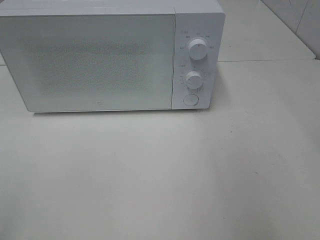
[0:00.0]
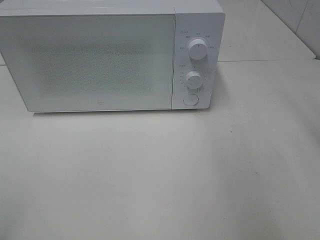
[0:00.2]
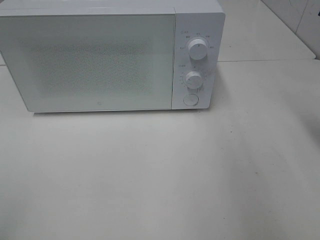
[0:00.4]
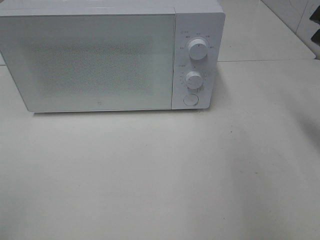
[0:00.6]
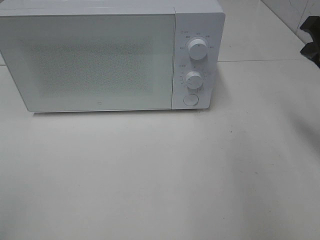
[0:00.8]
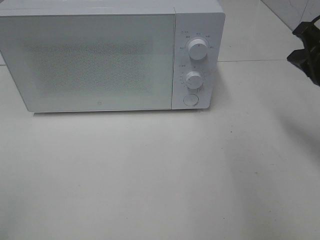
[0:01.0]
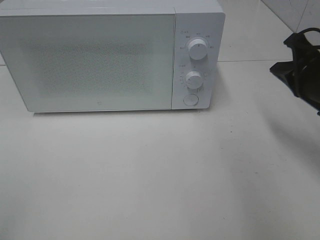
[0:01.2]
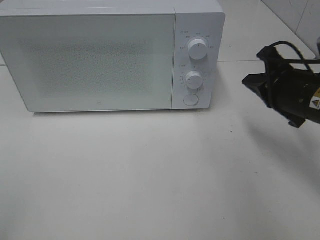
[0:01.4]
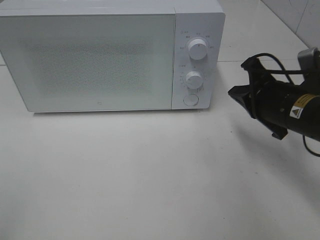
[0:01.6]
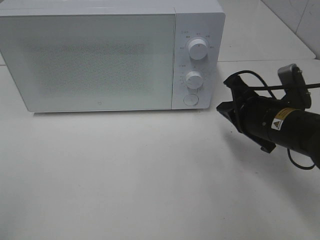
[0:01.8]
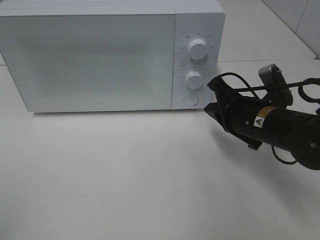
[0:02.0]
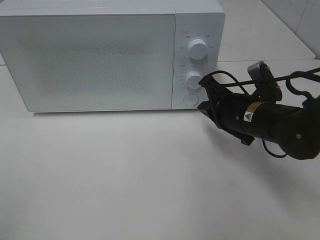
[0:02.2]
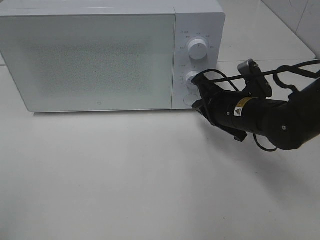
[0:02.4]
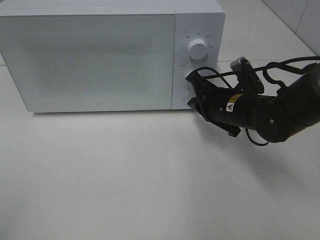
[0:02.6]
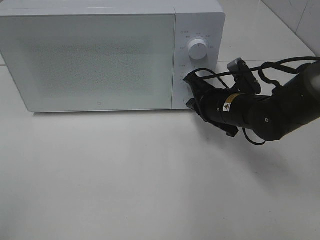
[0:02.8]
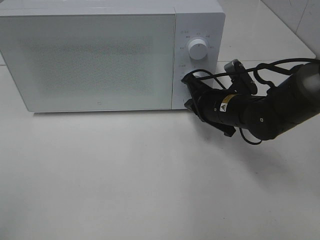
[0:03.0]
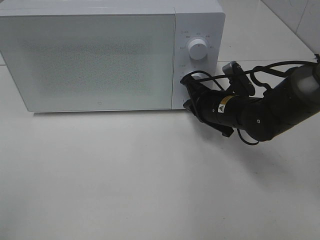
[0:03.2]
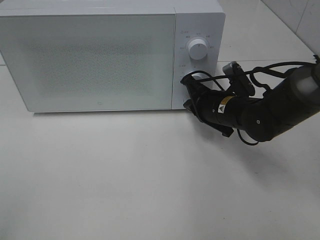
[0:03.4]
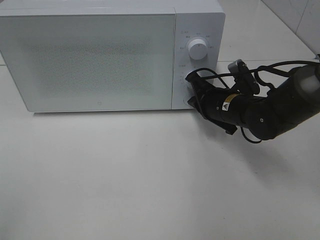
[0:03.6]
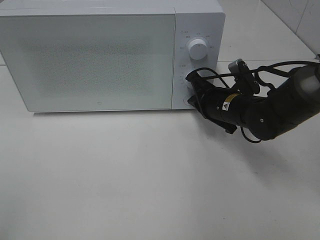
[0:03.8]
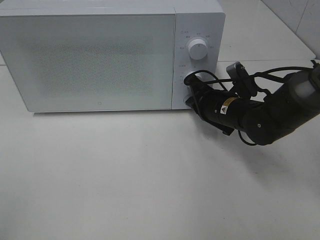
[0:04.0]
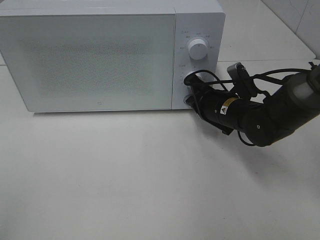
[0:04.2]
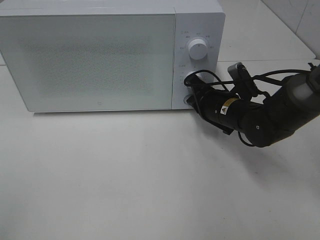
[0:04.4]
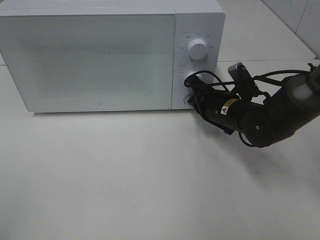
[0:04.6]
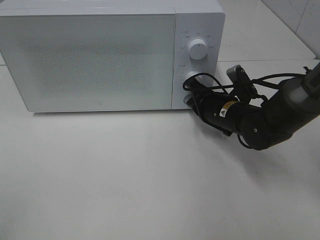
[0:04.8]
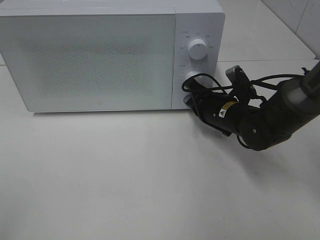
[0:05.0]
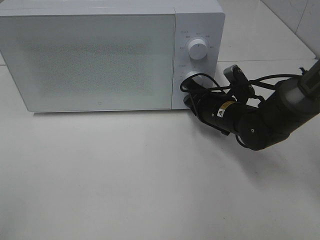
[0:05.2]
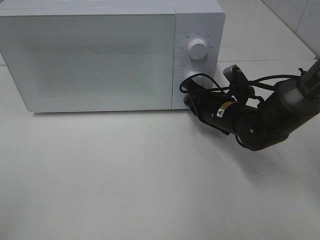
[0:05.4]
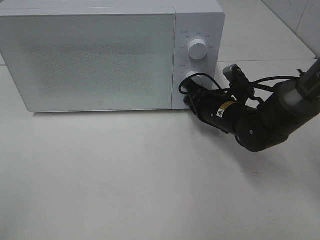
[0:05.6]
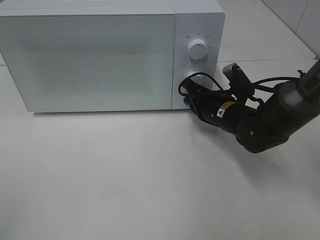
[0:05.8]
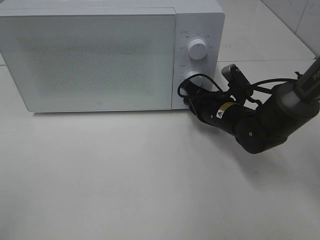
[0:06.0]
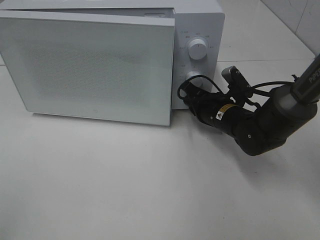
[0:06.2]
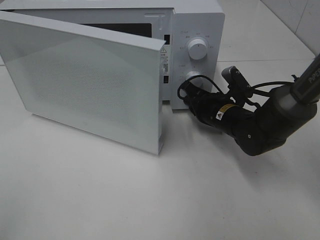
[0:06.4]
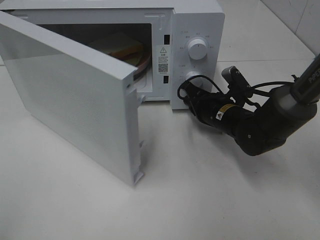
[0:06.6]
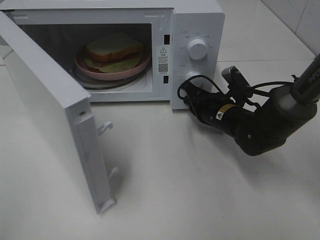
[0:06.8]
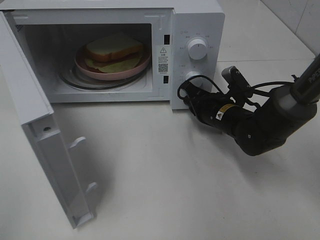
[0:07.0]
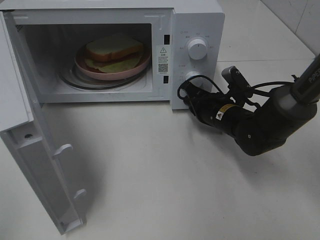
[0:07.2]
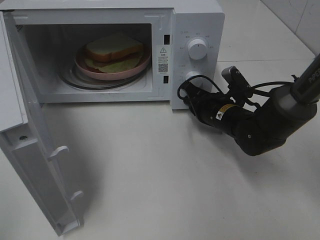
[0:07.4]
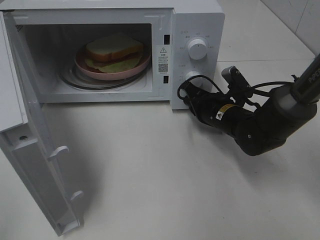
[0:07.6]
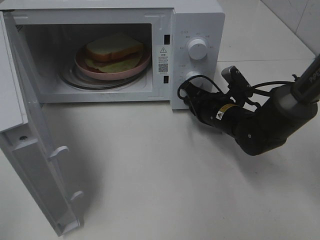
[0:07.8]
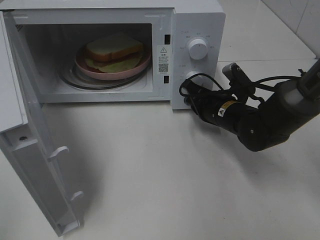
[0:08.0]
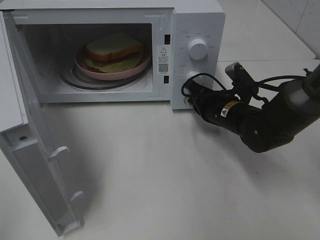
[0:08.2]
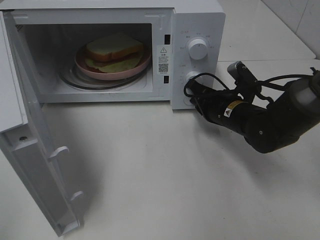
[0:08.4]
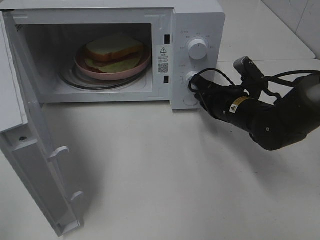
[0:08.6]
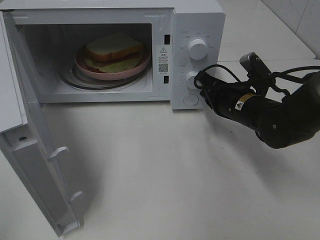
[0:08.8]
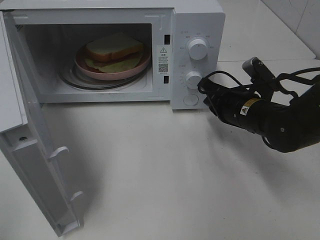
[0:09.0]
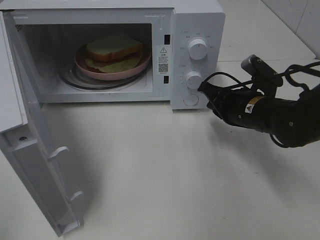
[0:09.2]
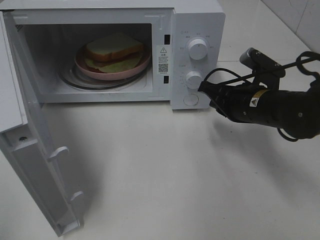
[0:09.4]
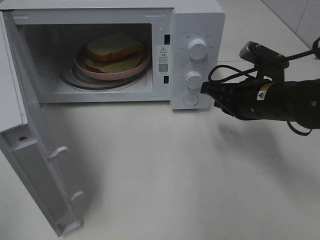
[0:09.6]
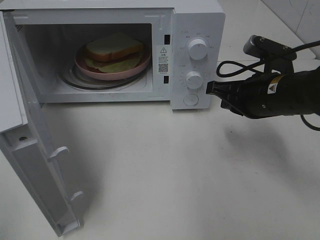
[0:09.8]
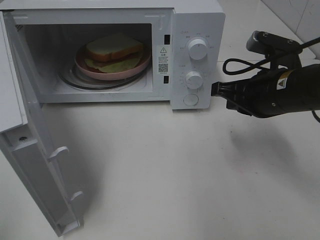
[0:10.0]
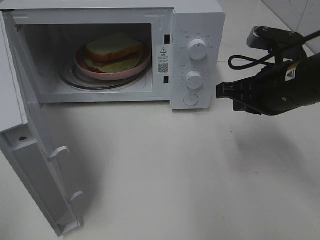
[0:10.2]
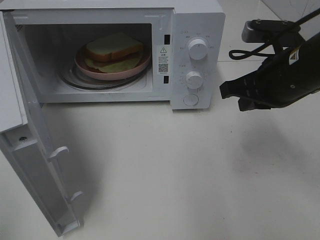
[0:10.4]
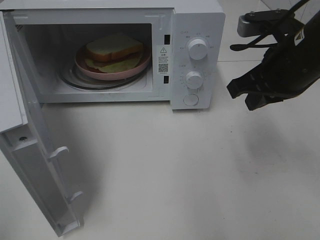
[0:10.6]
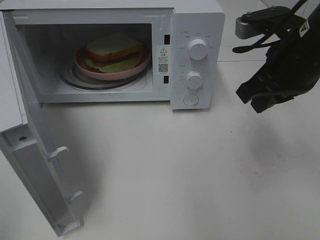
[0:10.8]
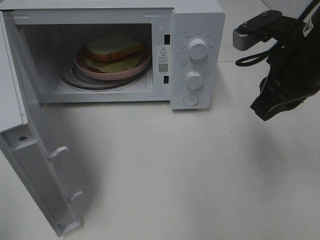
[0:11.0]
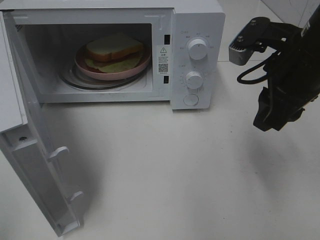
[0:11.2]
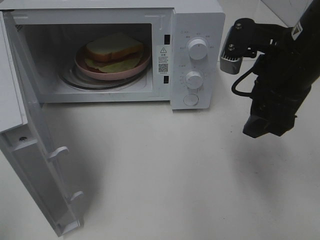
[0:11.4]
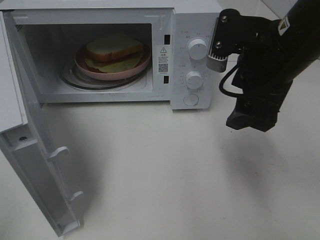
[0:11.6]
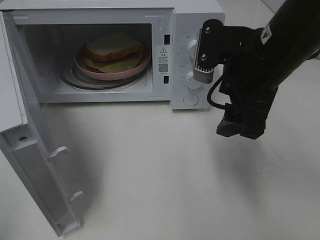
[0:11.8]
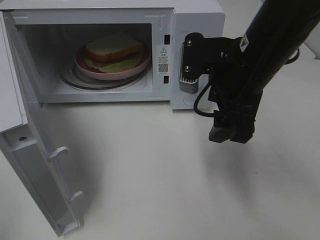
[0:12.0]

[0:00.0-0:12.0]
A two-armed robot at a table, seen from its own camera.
Task of the whole recording: Heat Sandwich.
Step, 0:00.0 to 0:09.0: Right hand: press the switch.
0:00.0 to 0:01.6: The right gripper travels downward, to the left and forward by about 20 cm, and closes up.
0:01.6 to 0:03.0: The right gripper shifts approximately 10 cm forward, to the left and downward.
0:03.0 to 0:06.0: The grippers stay close to where they were, moving slightly.
0:07.6 to 0:09.0: The right gripper changes place by roughly 5 cm.
0:09.0 to 0:10.4: The right gripper goes roughly 10 cm upward.
0:10.4 to 0:12.0: The right gripper travels to the left by roughly 10 cm, and opens its fingers.

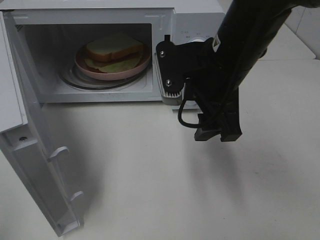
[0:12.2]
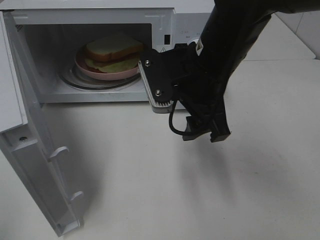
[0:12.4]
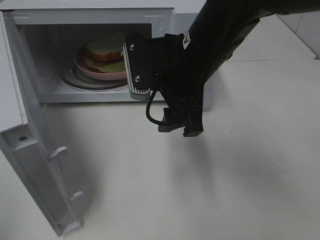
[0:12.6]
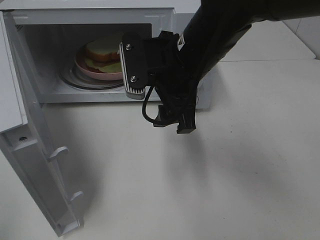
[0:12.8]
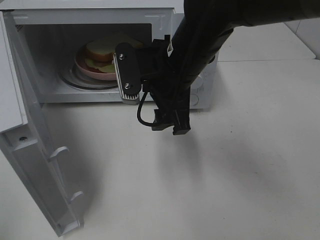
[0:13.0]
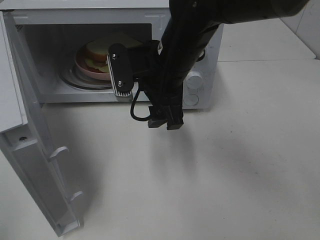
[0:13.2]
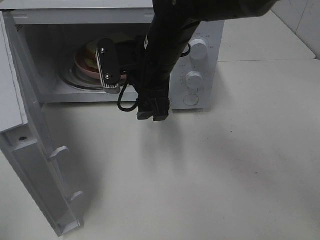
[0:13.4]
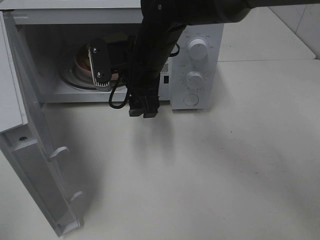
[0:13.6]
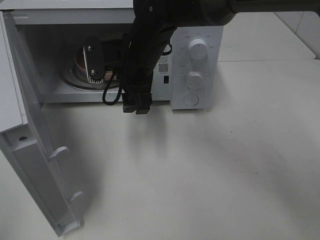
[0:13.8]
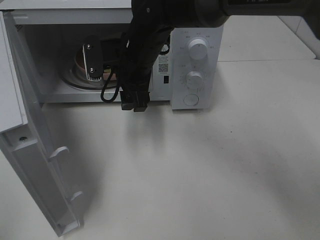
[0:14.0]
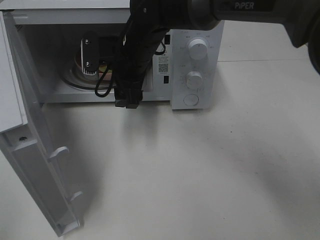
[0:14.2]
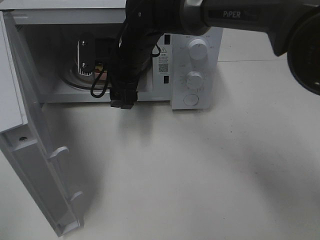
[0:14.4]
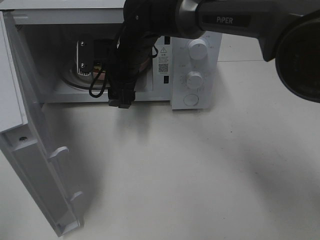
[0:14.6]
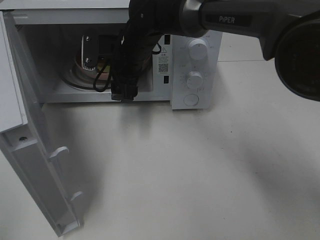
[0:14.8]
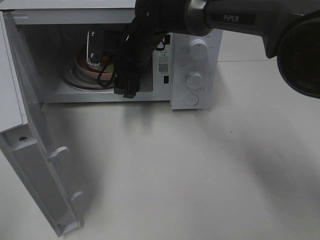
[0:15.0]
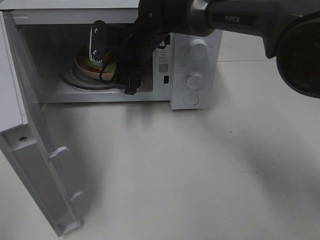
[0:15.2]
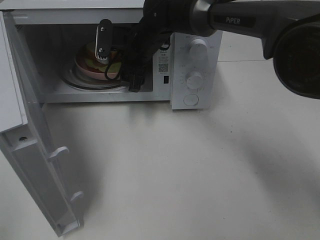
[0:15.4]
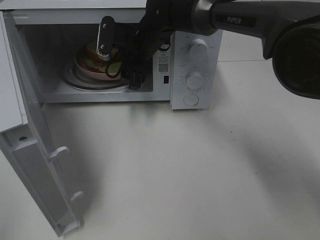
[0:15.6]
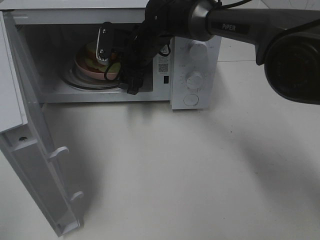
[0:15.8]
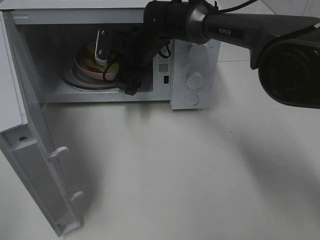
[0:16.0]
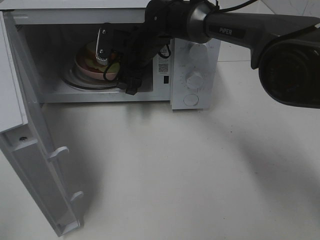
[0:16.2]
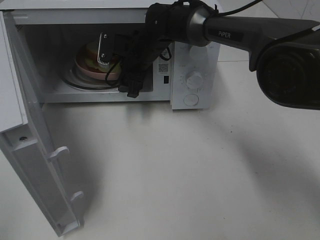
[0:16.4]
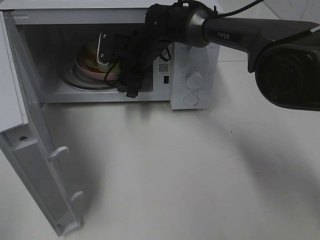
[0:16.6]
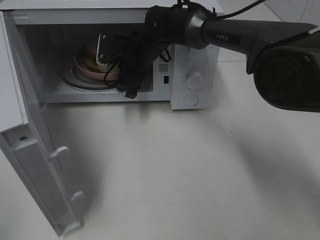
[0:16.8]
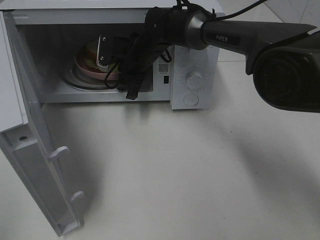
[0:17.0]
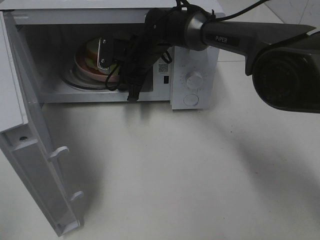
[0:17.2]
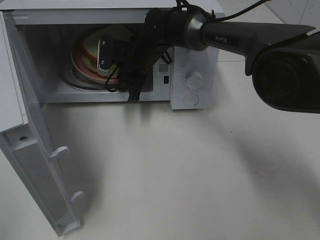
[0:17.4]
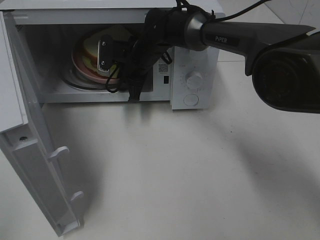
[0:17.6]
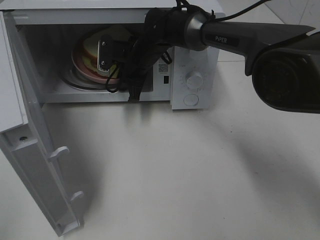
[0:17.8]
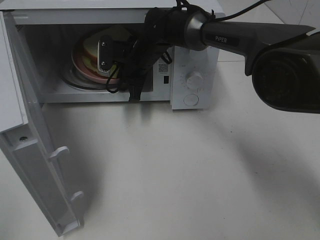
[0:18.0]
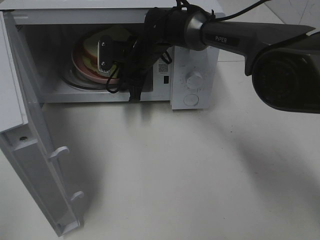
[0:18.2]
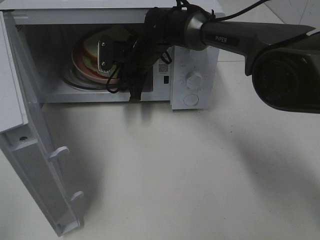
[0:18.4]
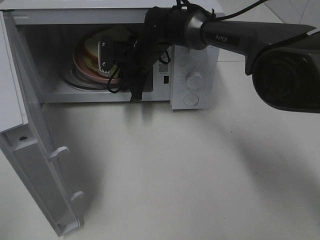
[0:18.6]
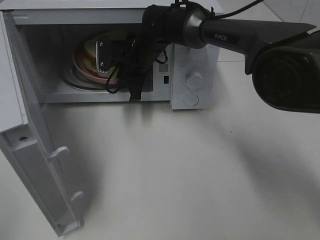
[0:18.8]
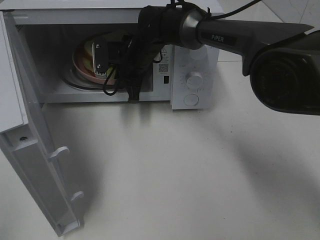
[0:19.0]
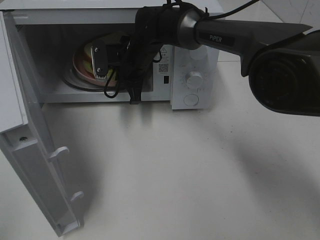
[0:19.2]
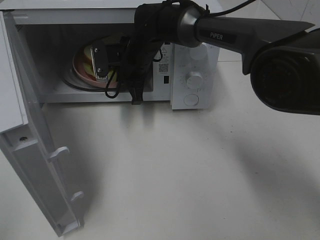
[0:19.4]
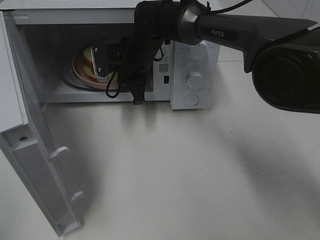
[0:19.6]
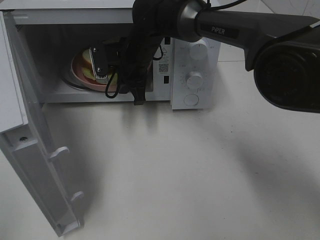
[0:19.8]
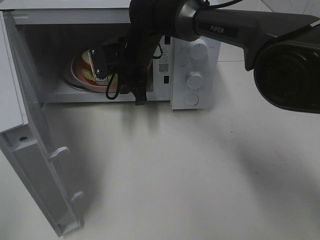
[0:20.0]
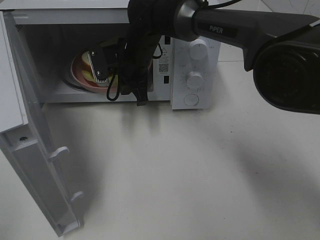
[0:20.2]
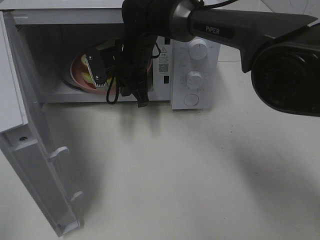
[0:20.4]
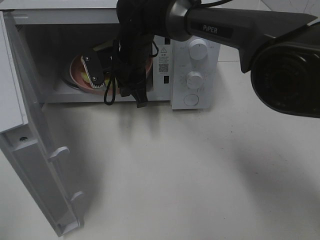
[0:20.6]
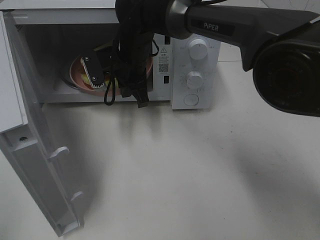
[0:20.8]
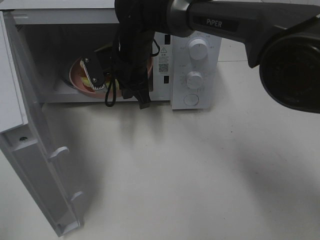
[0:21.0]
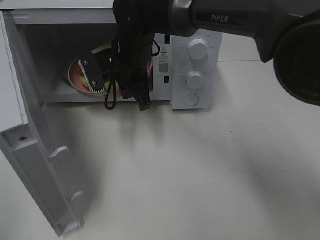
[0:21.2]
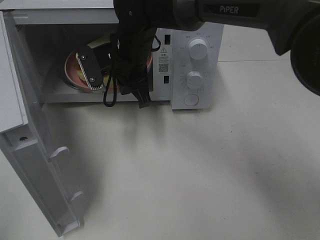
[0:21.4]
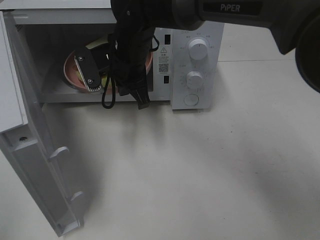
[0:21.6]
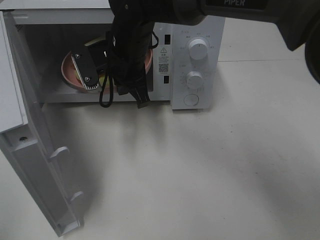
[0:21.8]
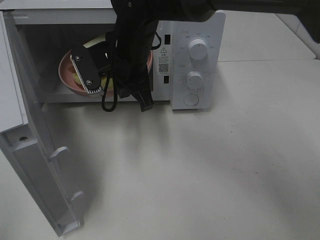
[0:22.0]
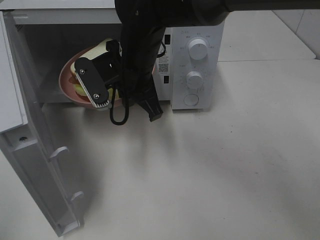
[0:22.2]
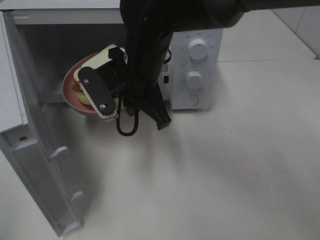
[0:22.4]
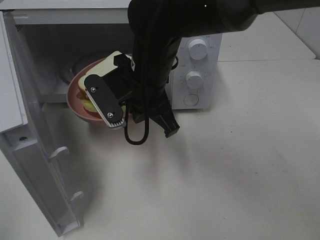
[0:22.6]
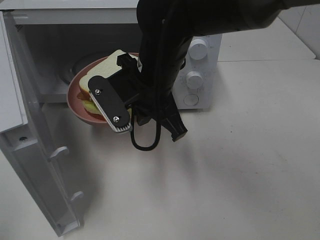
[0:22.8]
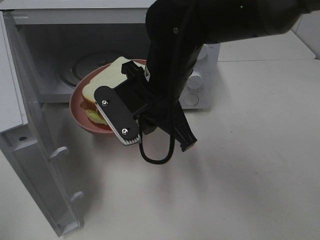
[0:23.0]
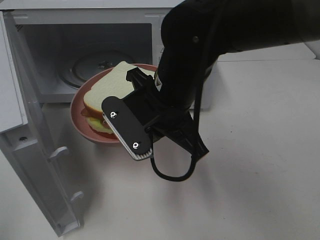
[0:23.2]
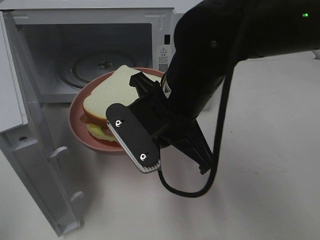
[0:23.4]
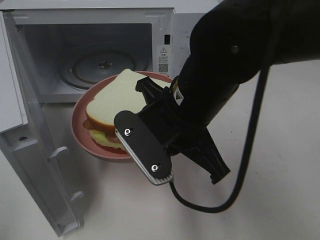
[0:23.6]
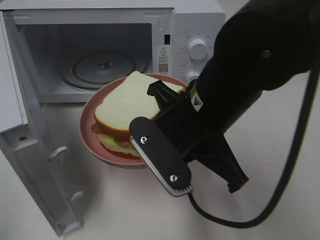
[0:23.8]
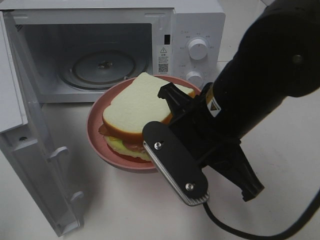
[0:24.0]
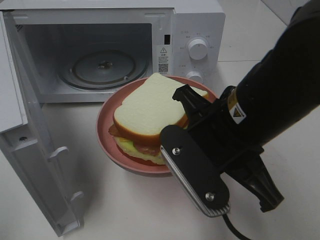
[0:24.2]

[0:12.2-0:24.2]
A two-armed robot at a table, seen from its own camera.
Task of the whole recording: Heat Sandwich.
Step, 0:12.2 to 0:19.0: Right hand: grab the plate with the sandwich.
0:12.2 to 0:13.8: The right gripper shifts approximately 15 cm to the left and forward.
0:13.8 to 0:15.2: The right gripper heads forward, covering roughly 10 cm.
0:15.2 to 0:16.6: The grippers move only a little.
0:16.6 to 0:18.2: The right gripper closes up.
0:18.2 to 0:19.8: There are only small adjustments of the grippers.
0:19.8 to 0:21.2: The right gripper changes place by about 5 cm.
0:21.2 to 0:22.6: The right gripper travels backward by some 10 cm.
0:22.6 to 0:24.2: The right gripper is displaced backward and to the right by approximately 15 cm.
